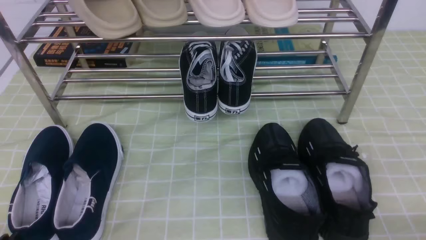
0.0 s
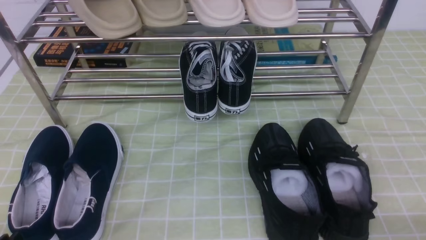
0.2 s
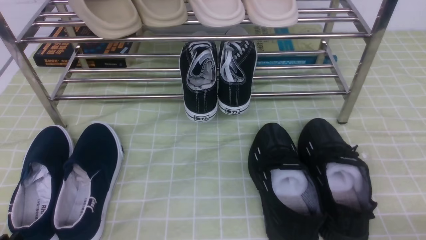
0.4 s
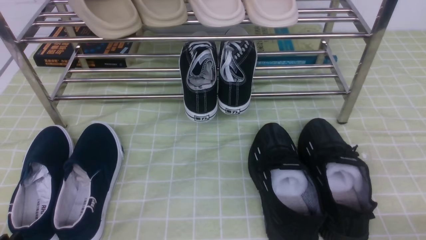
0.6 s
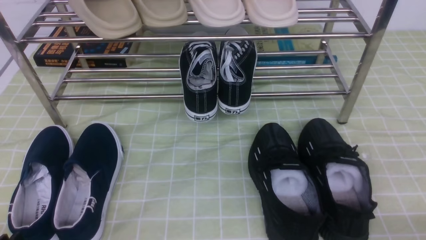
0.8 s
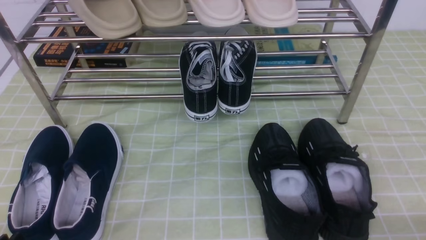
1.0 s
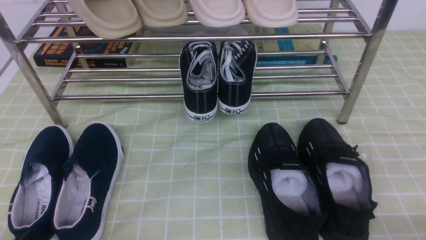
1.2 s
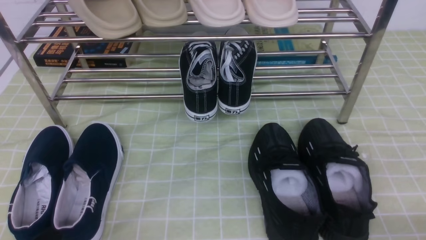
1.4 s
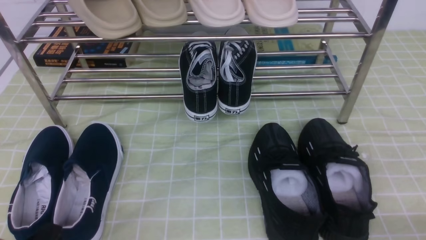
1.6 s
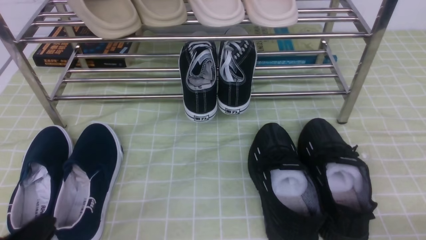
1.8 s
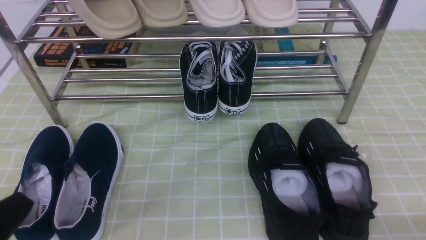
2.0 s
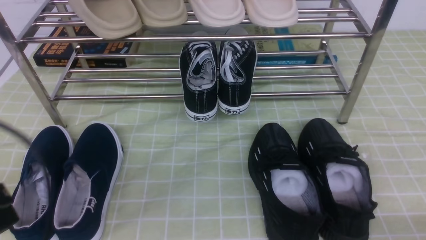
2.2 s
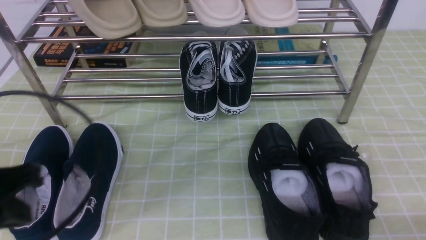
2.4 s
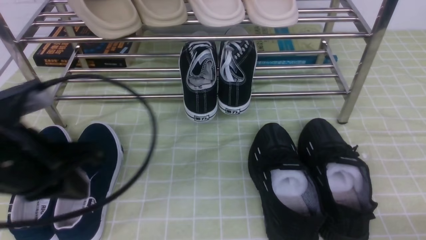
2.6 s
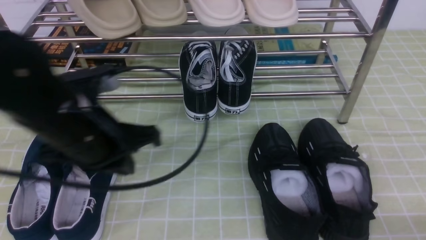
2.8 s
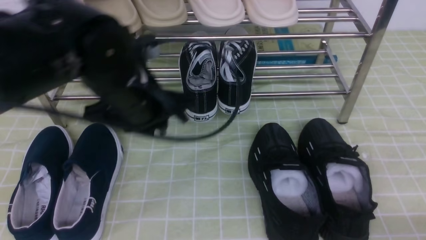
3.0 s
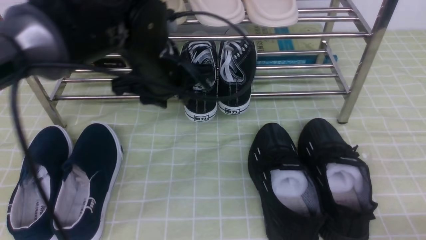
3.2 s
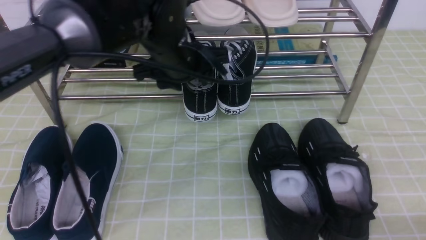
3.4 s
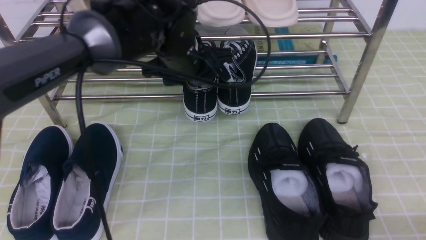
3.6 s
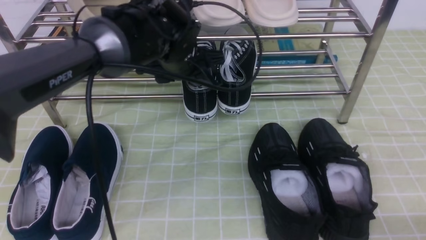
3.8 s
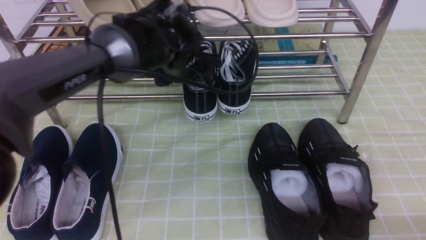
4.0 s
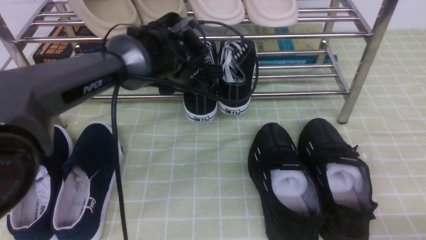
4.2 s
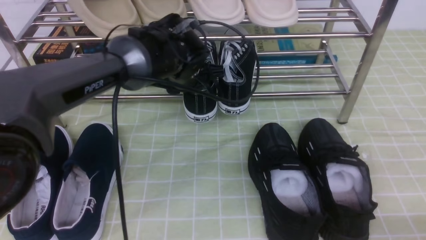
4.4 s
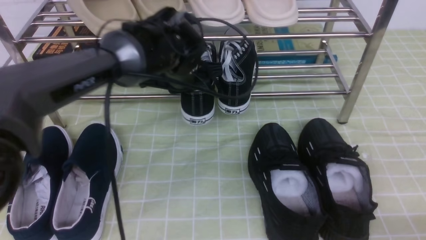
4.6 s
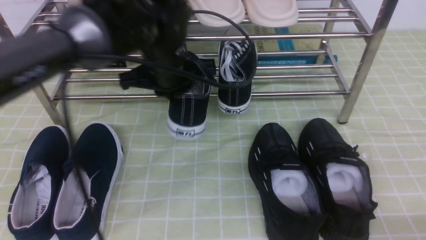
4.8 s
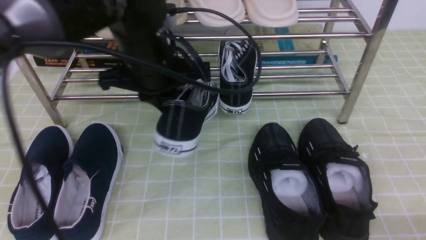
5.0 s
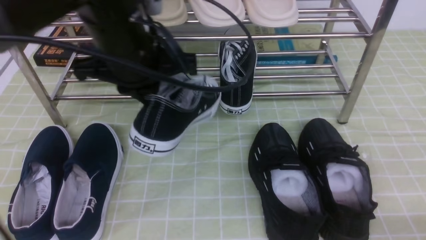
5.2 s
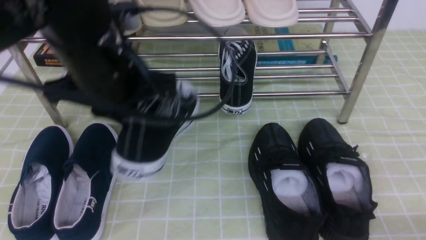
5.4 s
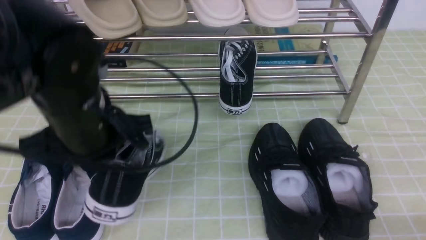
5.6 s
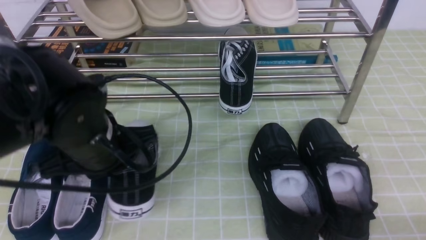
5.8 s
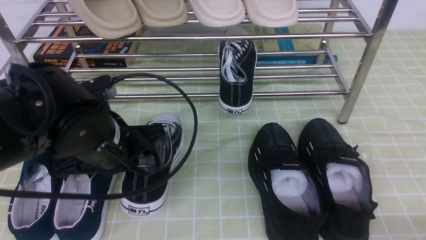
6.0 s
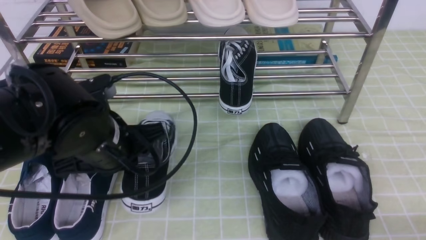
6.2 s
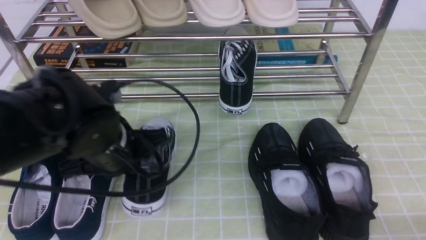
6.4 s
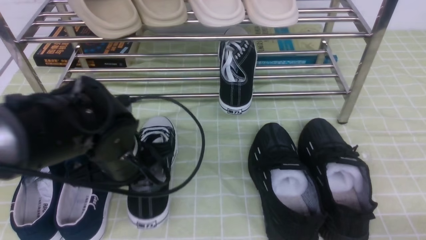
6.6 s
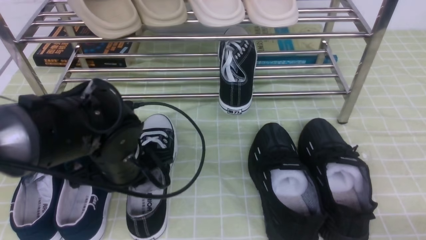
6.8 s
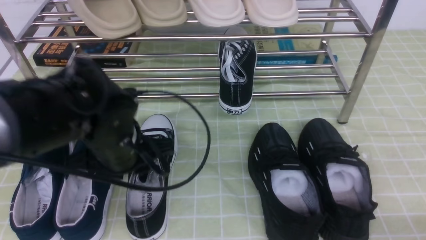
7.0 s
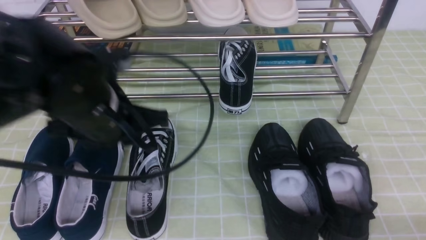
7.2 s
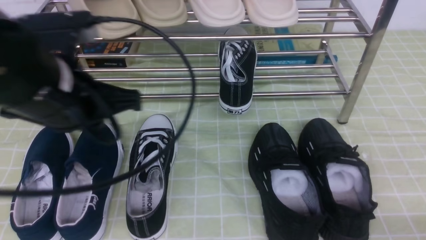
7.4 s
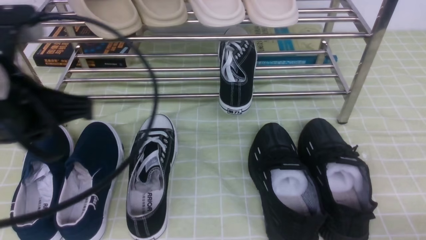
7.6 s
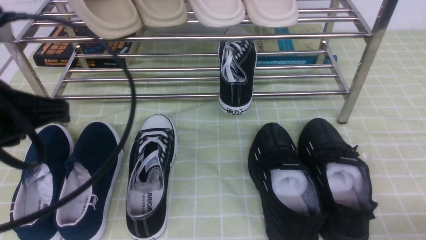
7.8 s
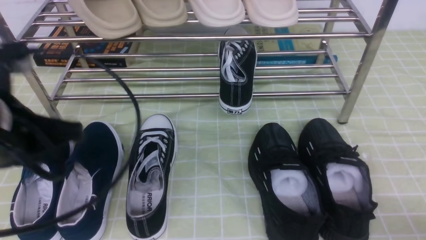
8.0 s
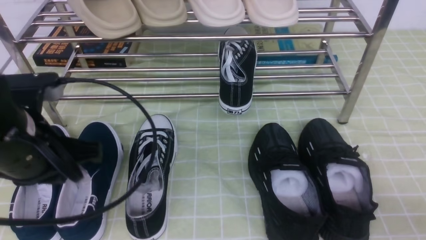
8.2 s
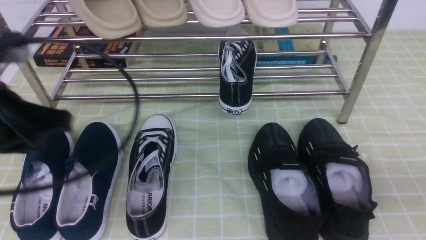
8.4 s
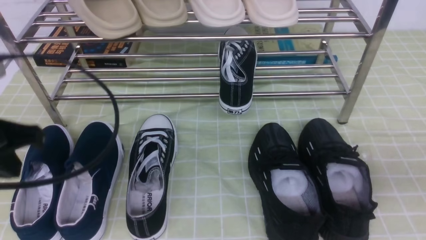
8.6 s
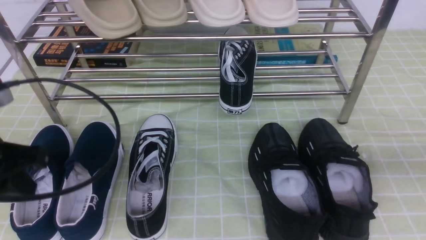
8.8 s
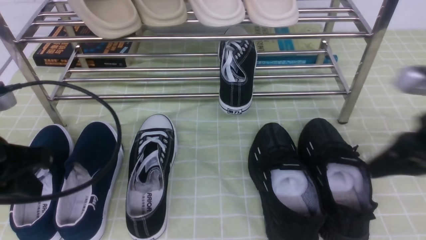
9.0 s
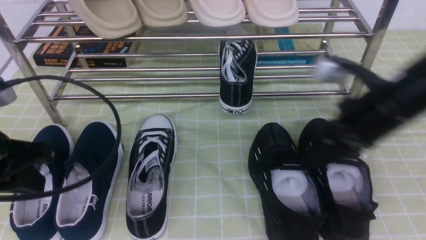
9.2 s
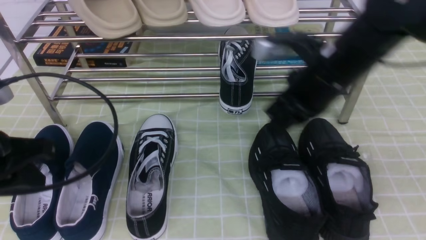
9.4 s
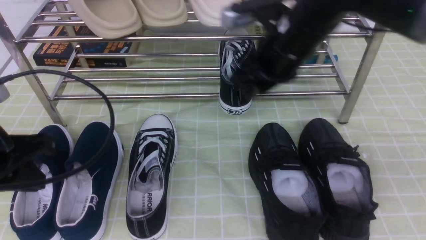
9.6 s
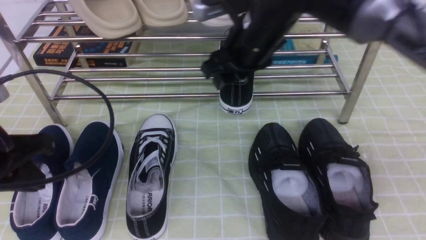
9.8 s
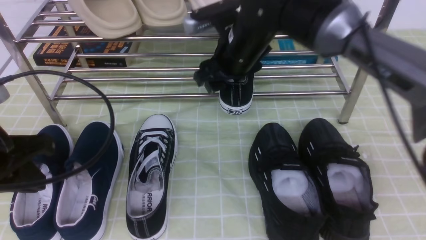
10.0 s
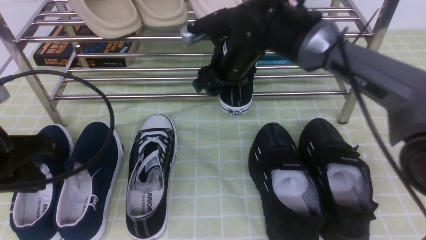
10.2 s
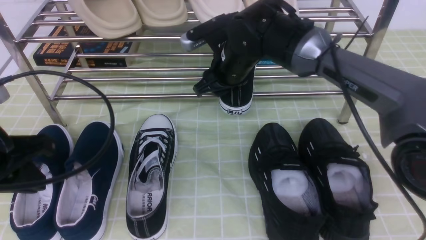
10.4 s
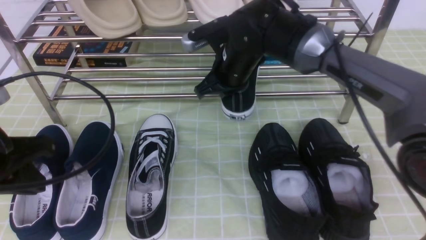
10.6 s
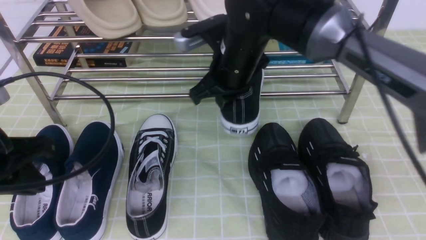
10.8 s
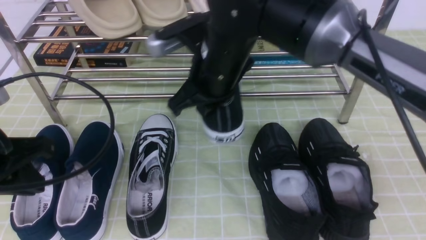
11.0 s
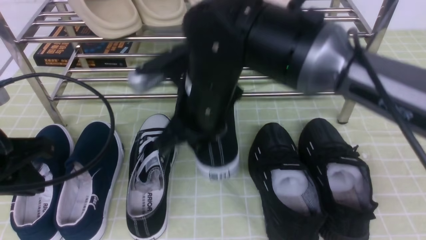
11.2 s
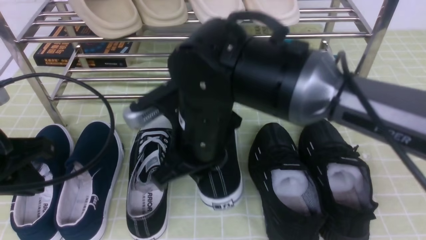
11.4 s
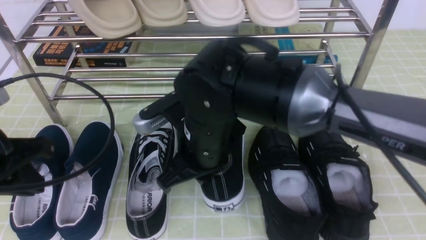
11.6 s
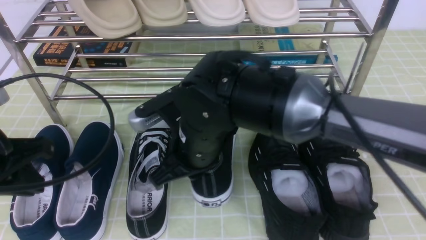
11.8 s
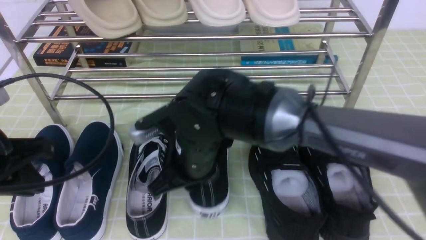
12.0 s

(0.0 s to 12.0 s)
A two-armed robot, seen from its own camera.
Step, 0.0 s - 4.4 s: use the left arm to clamp a shoe on the left side of the shoe rack.
Step, 4.6 s - 7.0 s: Use your left arm to remove the clamped shoe from the shoe rack and put it down.
Step, 7.2 s - 10.4 s: use the right arm to clamp a shoe on the right side of the shoe rack.
1.6 s - 3.0 s: The left gripper goes approximately 30 cm forward, to the right and upward, and closes, then opens again.
3.0 s - 4.4 s: The left gripper heads forward, to the right and downward, covering about 15 cm, and opens and closes again.
4.4 s - 6.0 s: The left gripper shifts about 20 cm backward and to the left, and closes.
6.0 s - 7.6 s: The left gripper travels upward and to the left by about 10 cm, and opens, then closes again.
7.6 s - 9.0 s: The left gripper goes roughly 10 cm to the left and downward. The right gripper heads forward, upward and to the left, covering some 25 cm, and closes.
9.0 s - 10.4 s: The right gripper shifts some 30 cm to the left and forward, and opens up.
10.4 s - 12.0 s: The right gripper moves backward and to the left, roughly 15 cm.

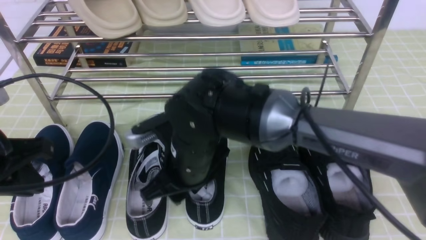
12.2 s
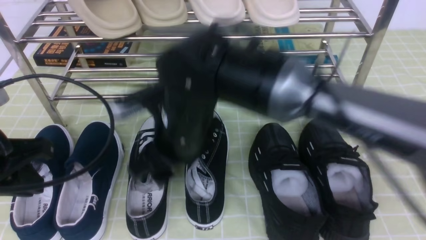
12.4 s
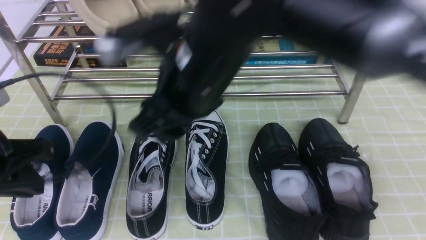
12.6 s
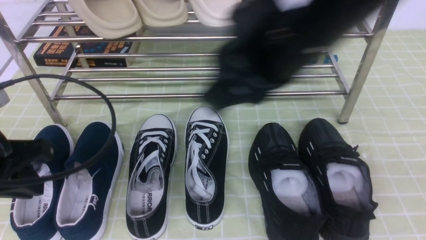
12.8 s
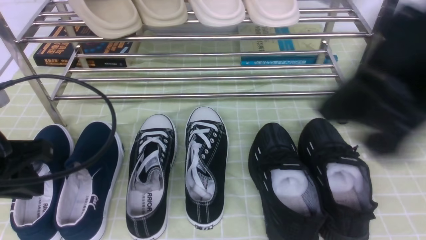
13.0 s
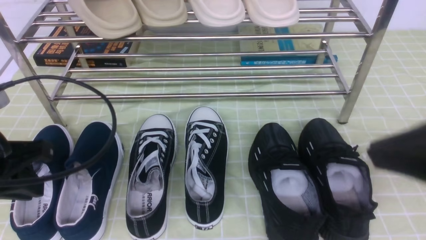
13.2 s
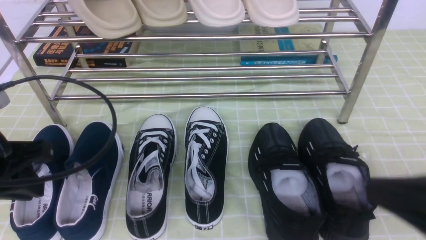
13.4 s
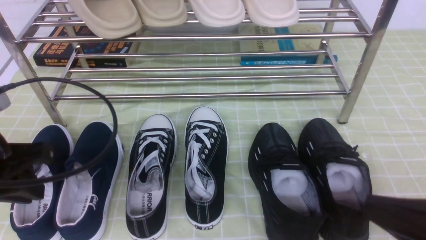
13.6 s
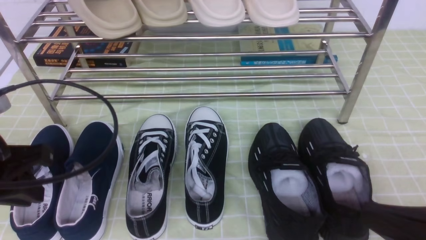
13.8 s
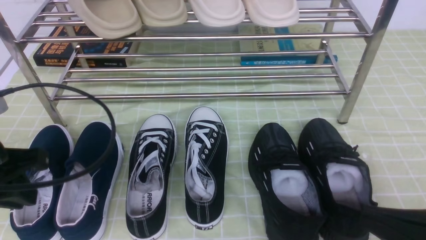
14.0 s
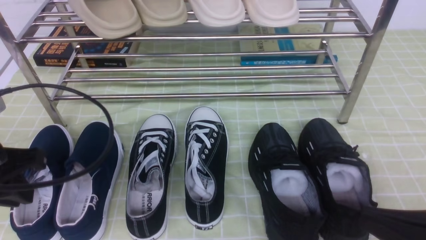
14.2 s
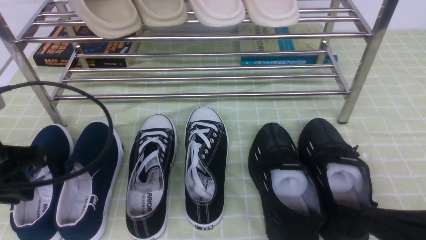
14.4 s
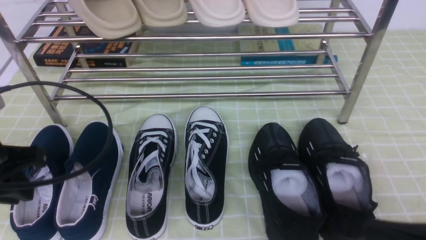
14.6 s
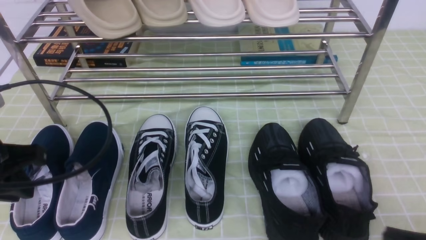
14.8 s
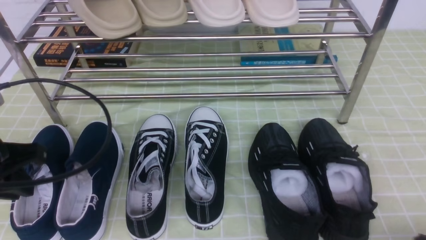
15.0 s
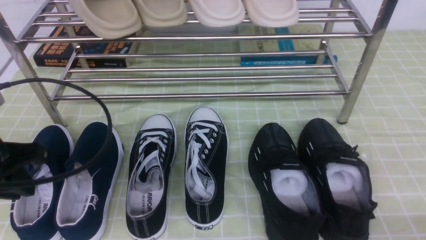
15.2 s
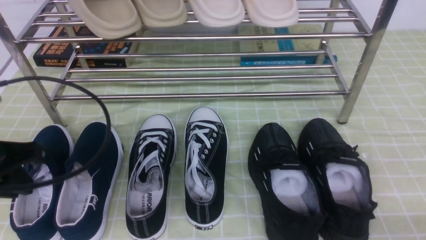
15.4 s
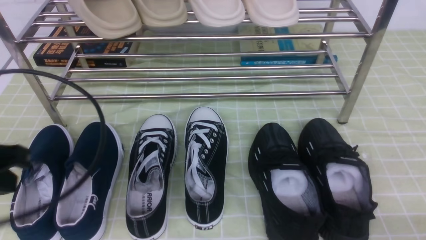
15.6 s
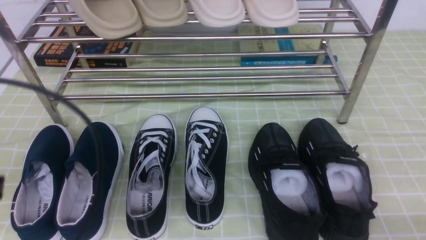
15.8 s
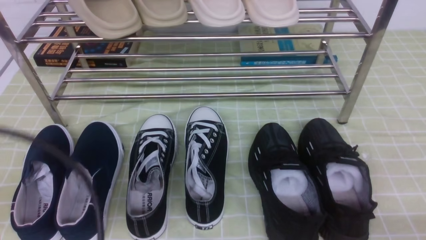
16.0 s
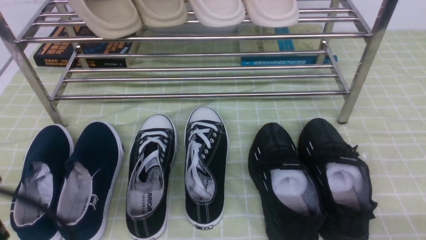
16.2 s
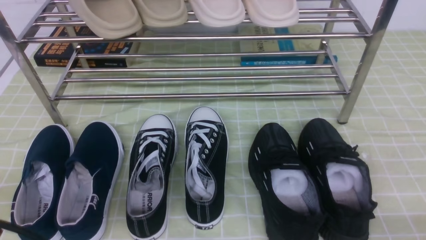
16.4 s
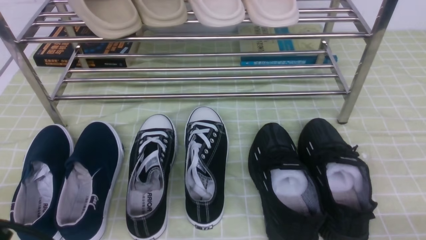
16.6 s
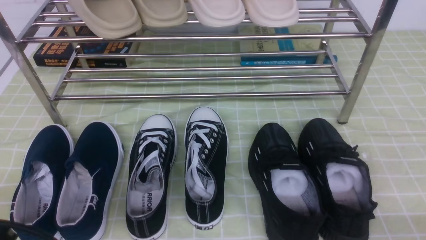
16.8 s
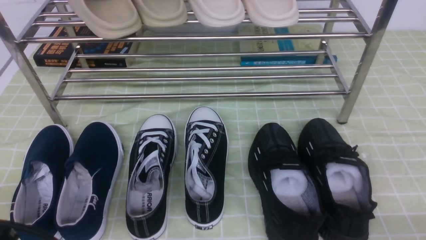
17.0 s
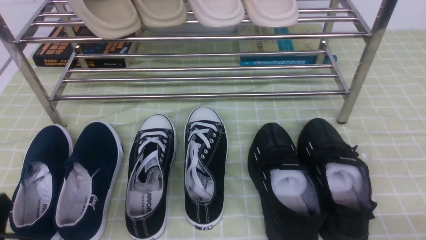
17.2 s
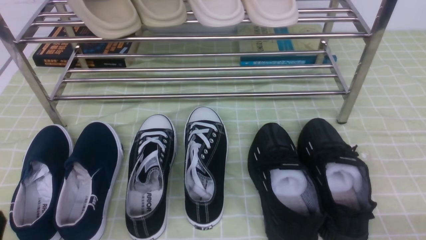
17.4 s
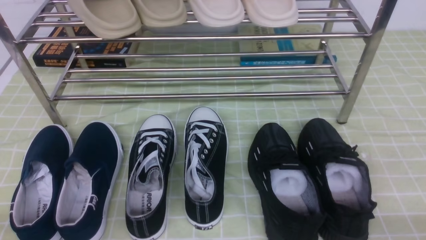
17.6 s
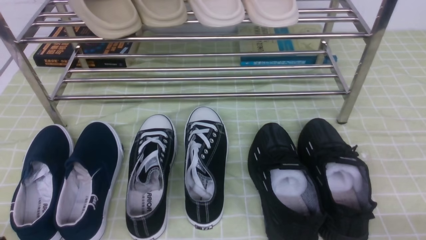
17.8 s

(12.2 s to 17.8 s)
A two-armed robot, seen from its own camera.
12.2 s - 13.6 s: The right gripper heads to the right and backward, covering some 35 cm, and closes its fingers.
13.6 s - 15.0 s: The right gripper travels downward and to the right by some 15 cm.
15.0 s - 16.4 s: The left gripper is displaced backward by some 15 cm.
16.4 s - 17.8 s: The left gripper is displaced downward by approximately 10 cm.
